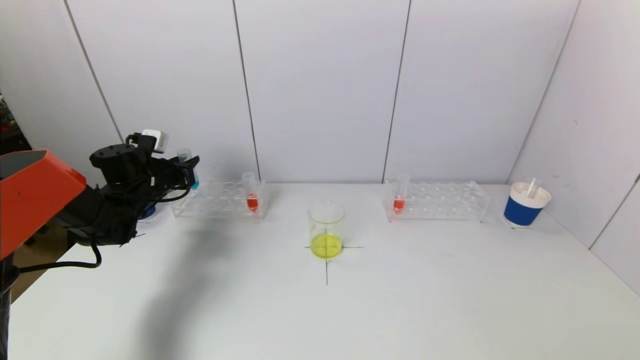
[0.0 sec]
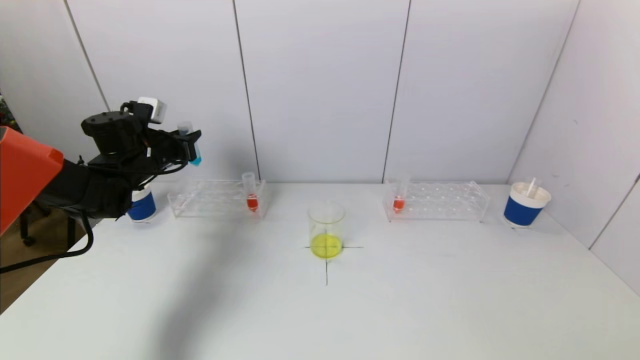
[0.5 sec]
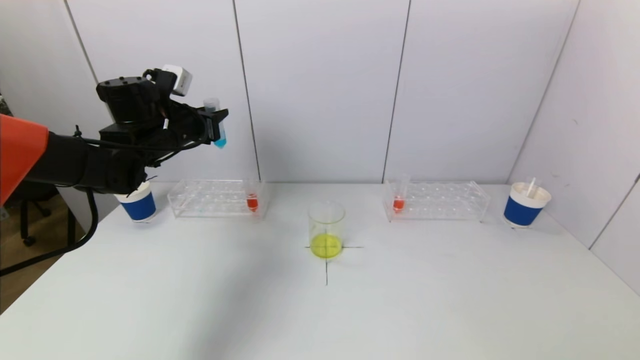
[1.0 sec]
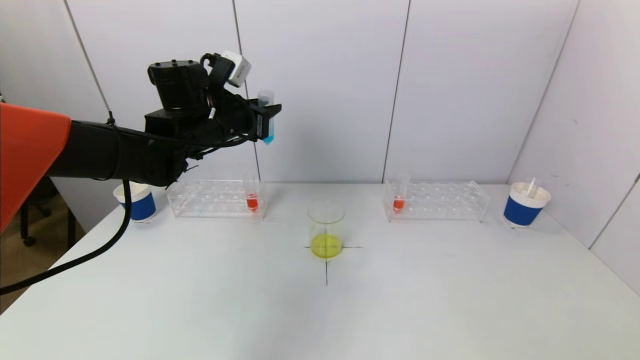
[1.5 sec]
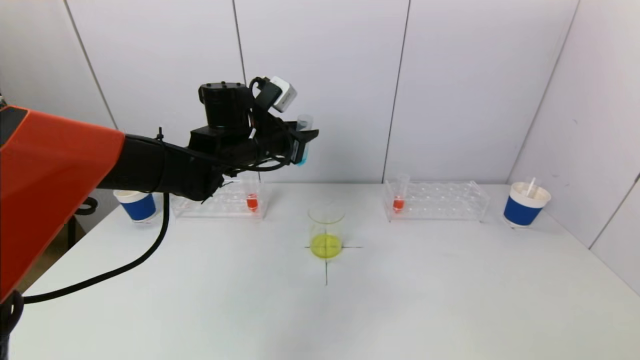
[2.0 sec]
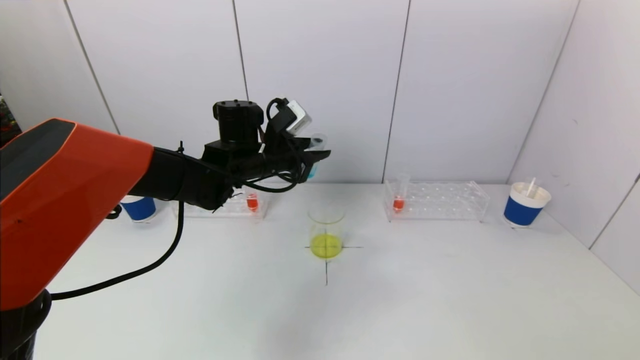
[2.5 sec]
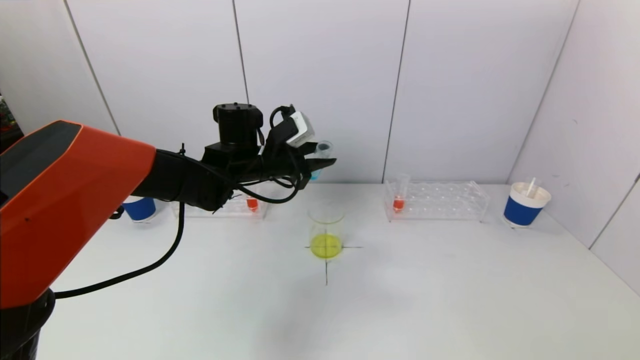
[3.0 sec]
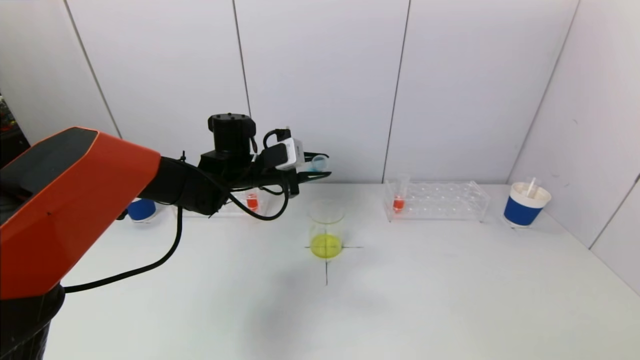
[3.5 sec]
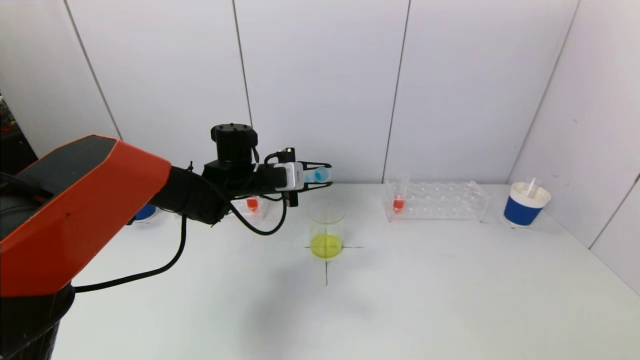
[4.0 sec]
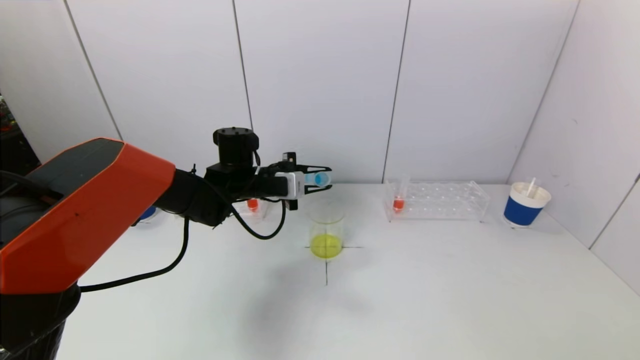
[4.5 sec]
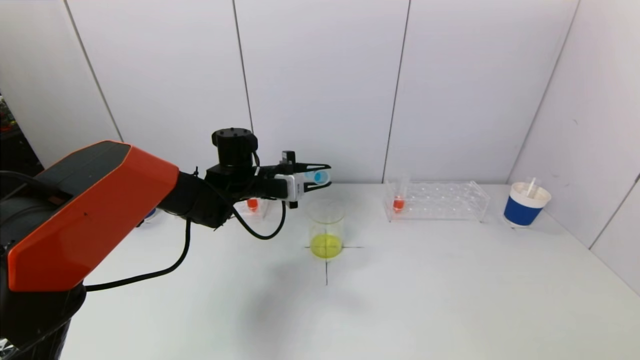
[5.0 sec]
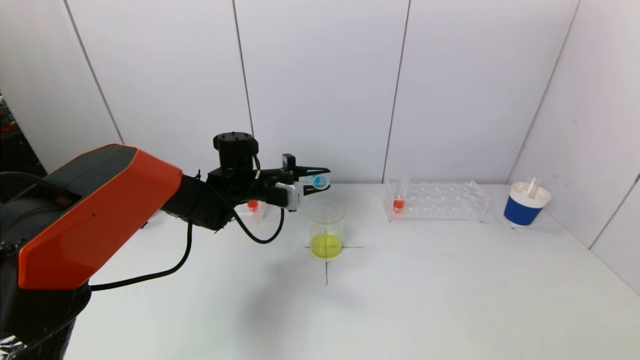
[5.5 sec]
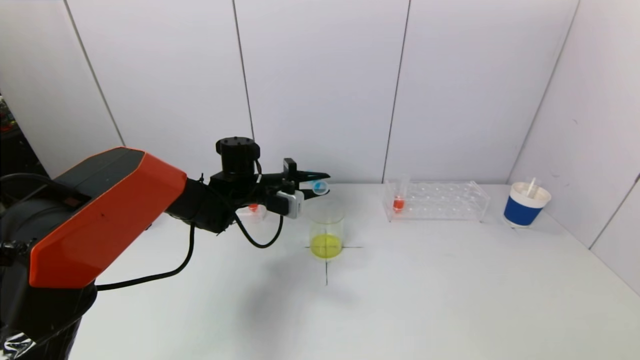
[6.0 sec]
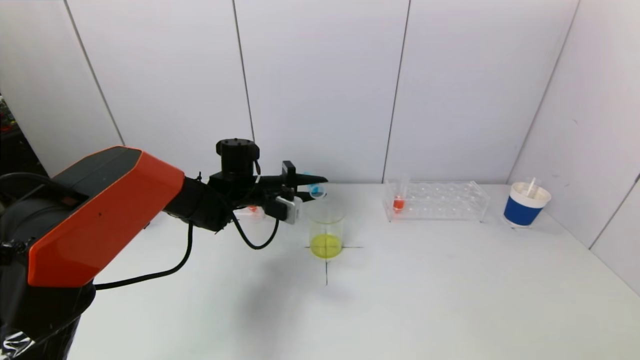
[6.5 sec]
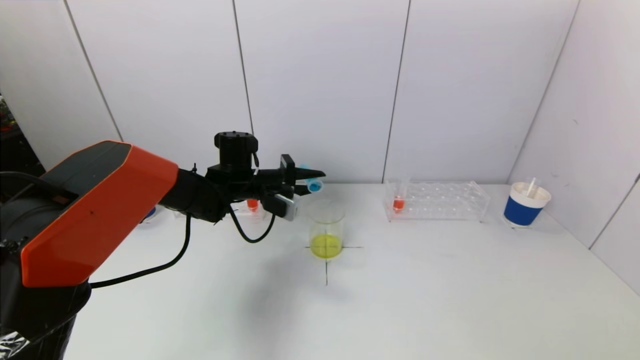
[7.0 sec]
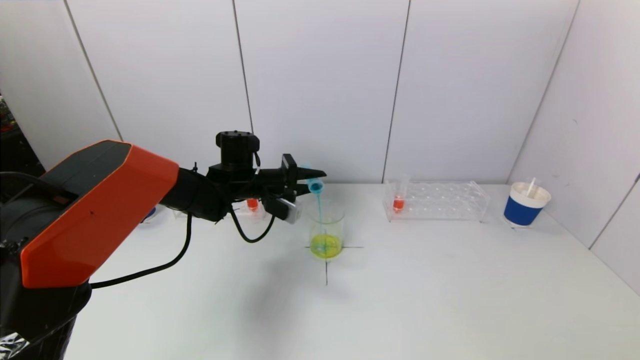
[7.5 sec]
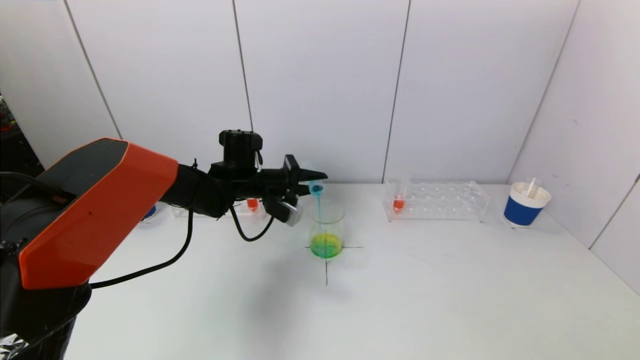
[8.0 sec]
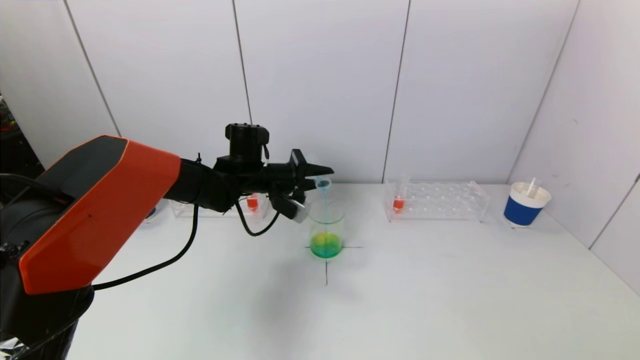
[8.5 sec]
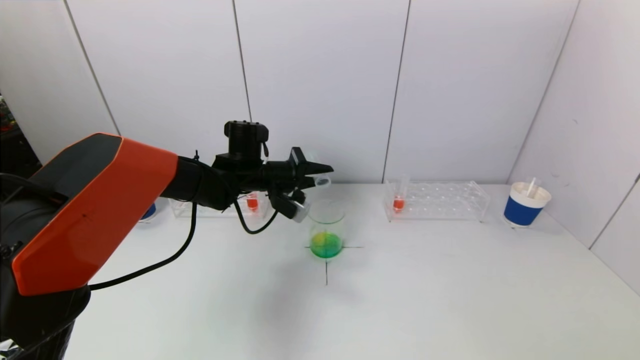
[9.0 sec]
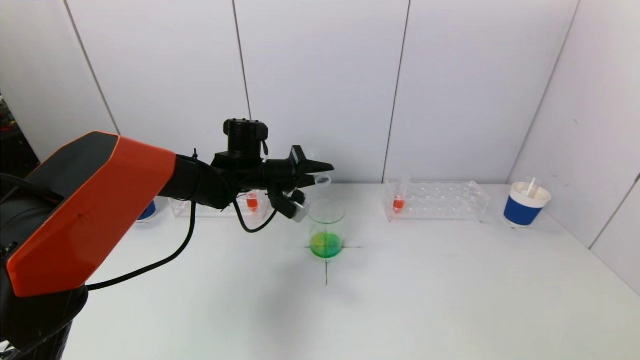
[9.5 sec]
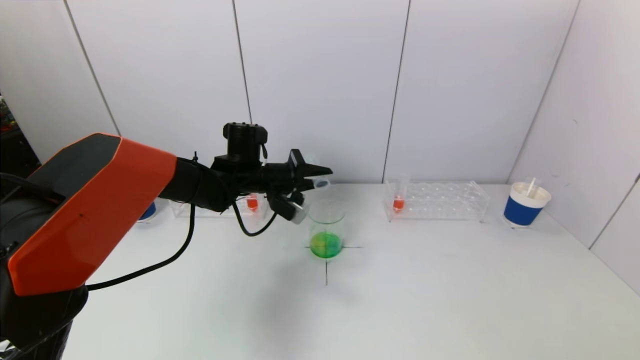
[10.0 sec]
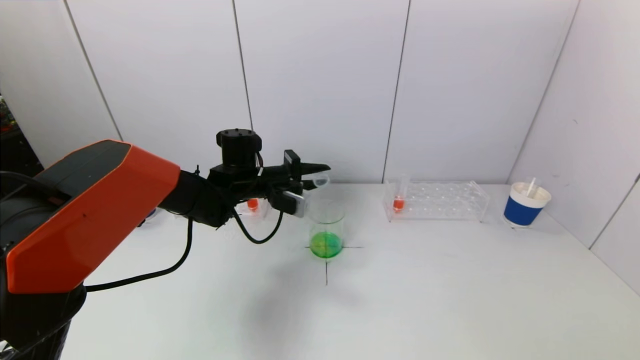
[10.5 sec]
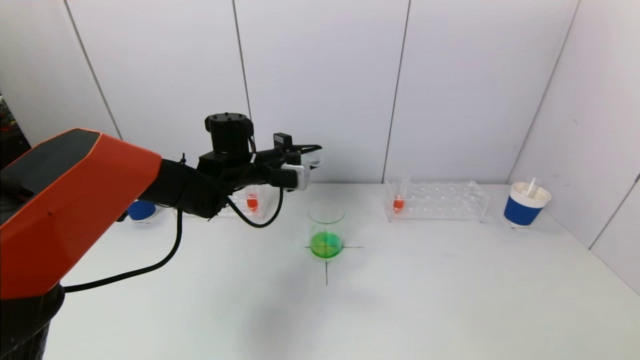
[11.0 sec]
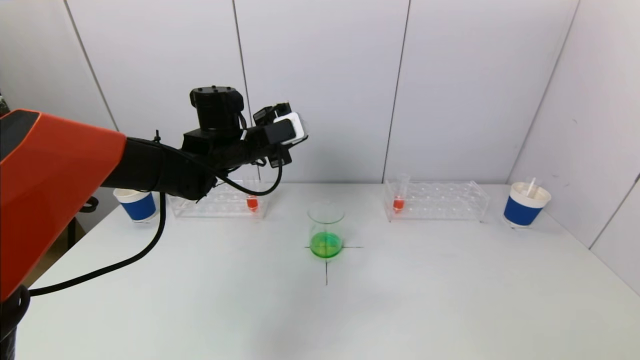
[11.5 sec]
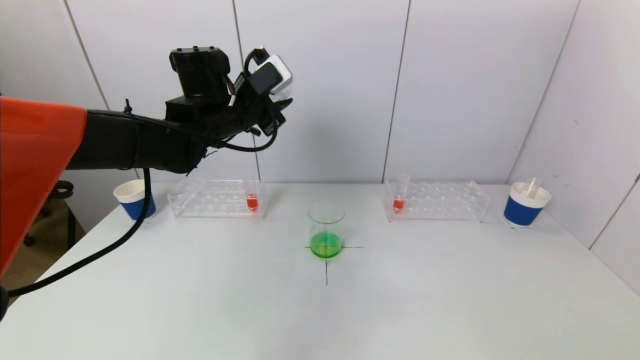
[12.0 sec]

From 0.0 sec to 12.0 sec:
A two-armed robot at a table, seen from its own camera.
Task of the whole recording: pick up a test tube with pigment on left test tube rack and a test tube with pigment on right test tube rack by grippers and pour them into the beaker.
Step, from 0.0 sec to 9.5 sec: Pour the blue reagent into the graduated cylinder with the left gripper.
From 0.0 sec to 2.0 sec: The left gripper shifts roughly 25 cm to the right and upward.
From 2.0 sec to 4.0 sec: The left gripper moves downward, approximately 5 cm.
From 4.0 sec to 6.0 sec: There are only small adjustments of the grippers.
From 6.0 sec to 8.0 sec: The grippers move only a little.
From 8.0 sec to 10.0 sec: The grippers stay close to where they were, moving slightly.
From 10.0 sec to 12.0 sec: The left gripper travels upward by about 15 cm.

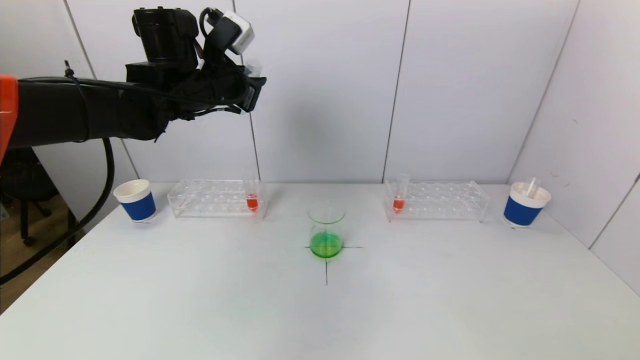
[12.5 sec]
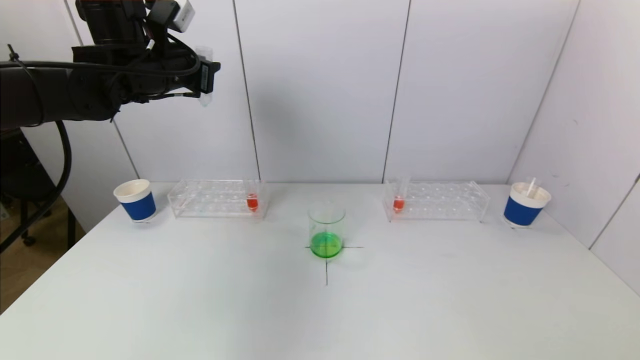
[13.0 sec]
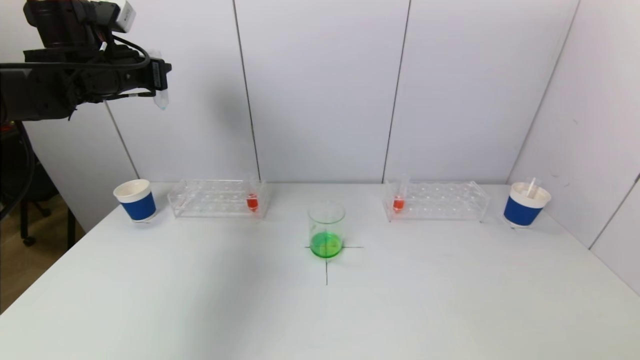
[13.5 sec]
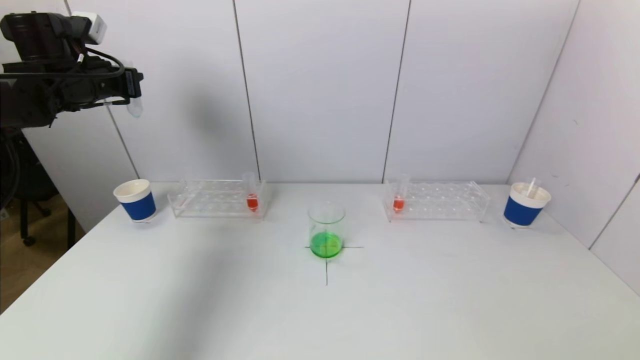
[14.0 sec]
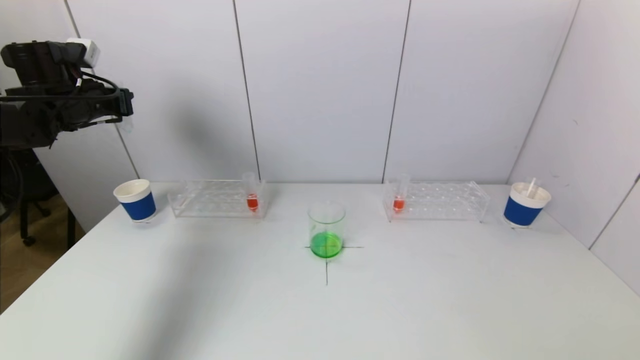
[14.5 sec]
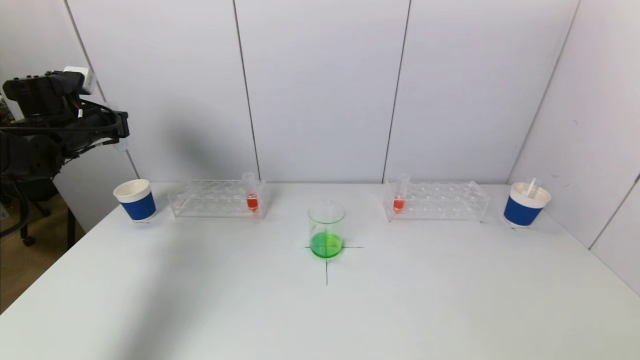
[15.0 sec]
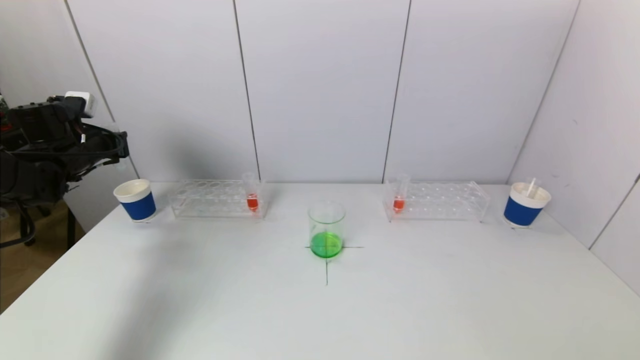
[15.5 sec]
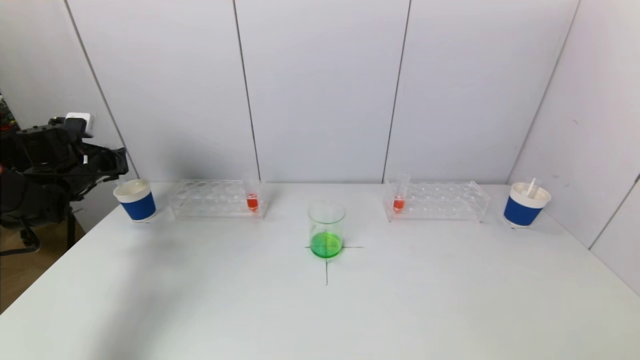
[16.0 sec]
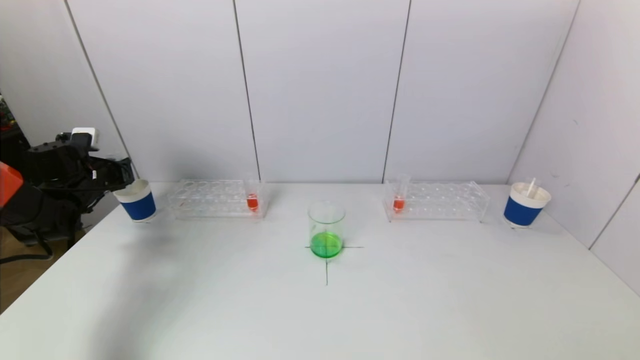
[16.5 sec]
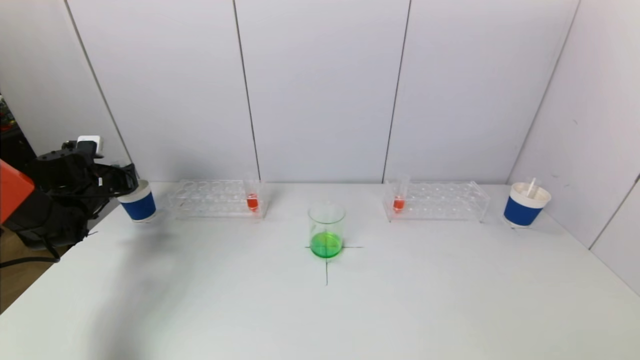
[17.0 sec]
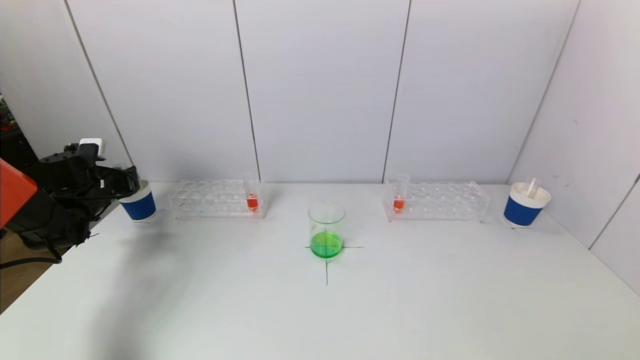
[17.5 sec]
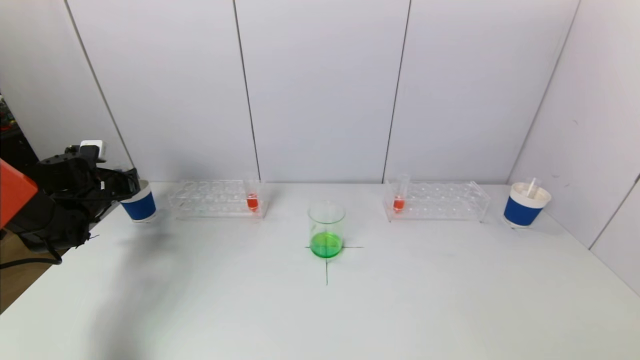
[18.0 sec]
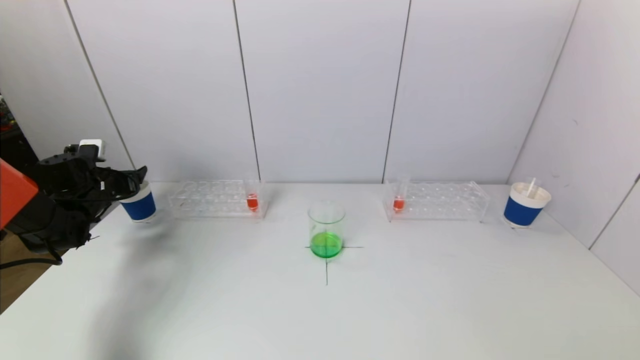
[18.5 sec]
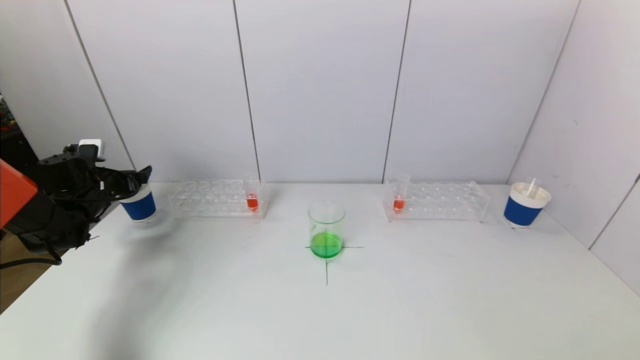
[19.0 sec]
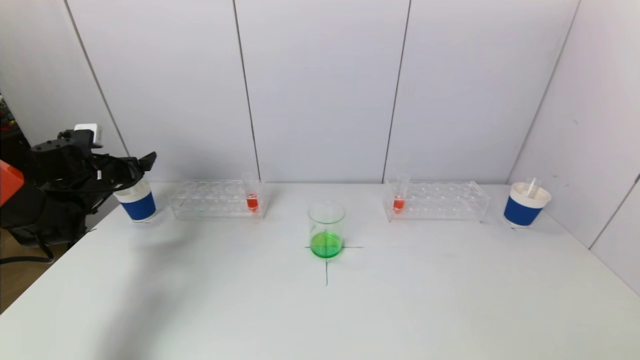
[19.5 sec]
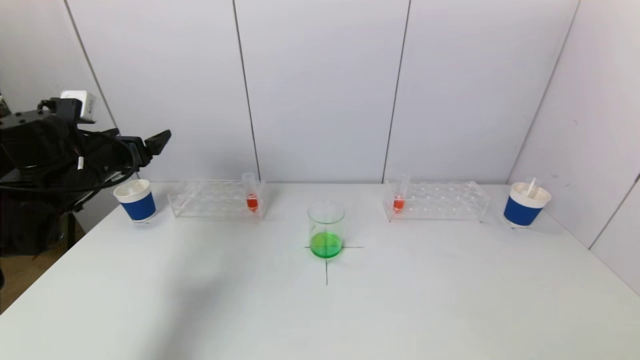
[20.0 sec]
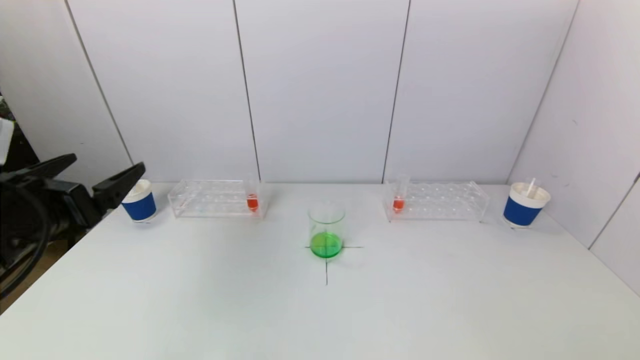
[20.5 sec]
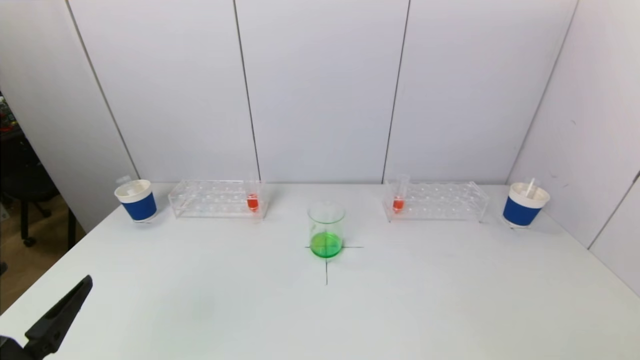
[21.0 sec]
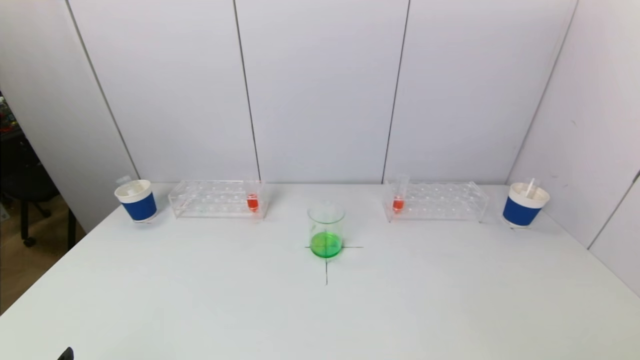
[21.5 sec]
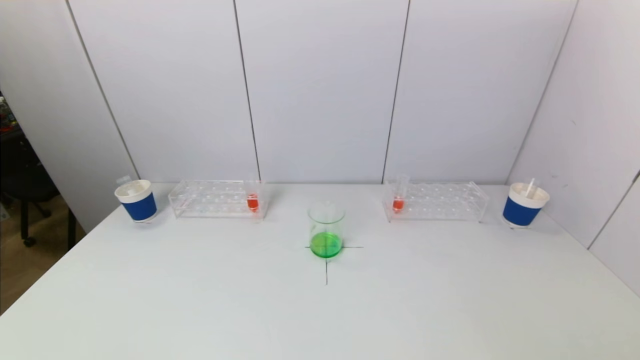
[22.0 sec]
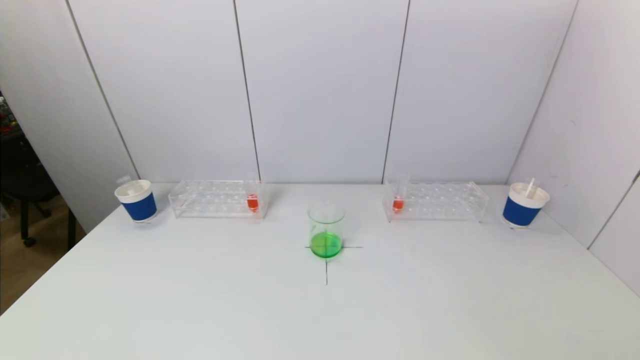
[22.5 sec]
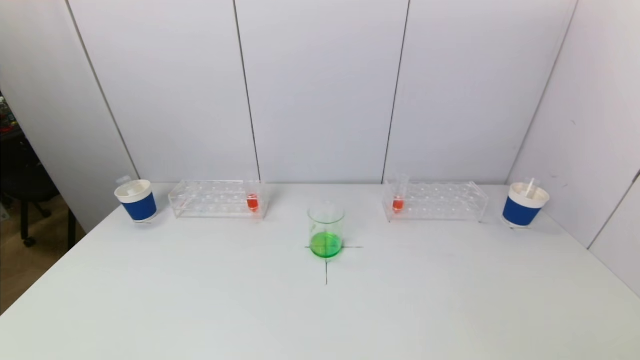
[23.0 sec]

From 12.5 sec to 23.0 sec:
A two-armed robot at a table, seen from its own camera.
Task of the whole recording: pick up a test tube with pigment on left test tube rack and a test tube with pigment on right test tube rack by grippers and pour them into the beaker.
Step, from 12.5 sec to 18.5 sec: Place the test tube into the paper cup with the left gripper.
From 12.5 sec to 14.5 sec: The left gripper travels to the left by approximately 20 cm.
From 14.5 sec to 16.5 sec: The left gripper is displaced downward by approximately 15 cm.
From 16.5 sec to 19.0 sec: The left gripper opens its fingers.
From 19.0 sec to 21.0 sec: The left gripper is displaced backward by approximately 35 cm.
From 21.0 sec to 23.0 sec: The left gripper travels backward and downward by some 10 cm.
